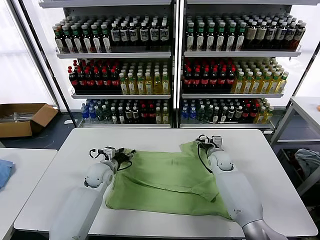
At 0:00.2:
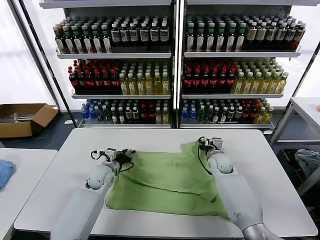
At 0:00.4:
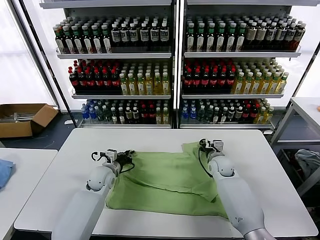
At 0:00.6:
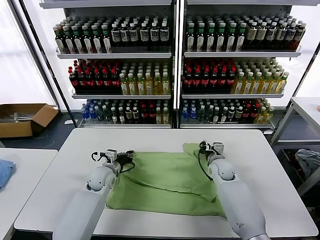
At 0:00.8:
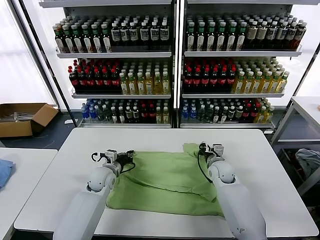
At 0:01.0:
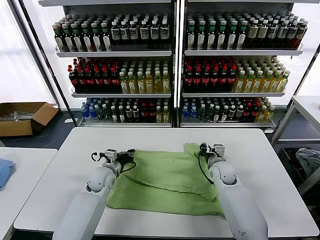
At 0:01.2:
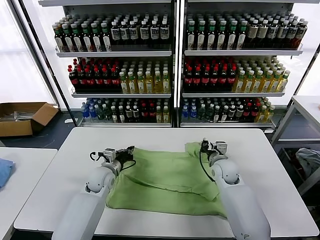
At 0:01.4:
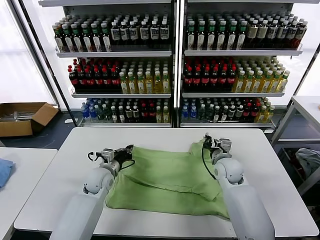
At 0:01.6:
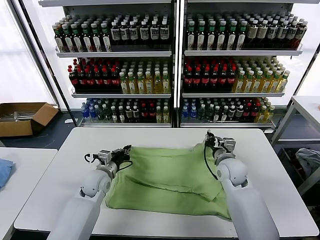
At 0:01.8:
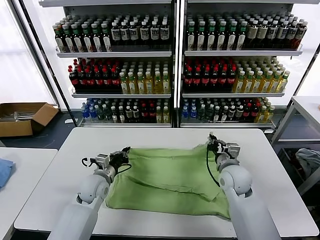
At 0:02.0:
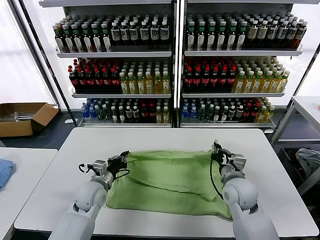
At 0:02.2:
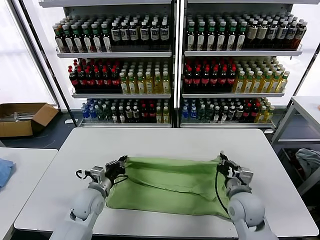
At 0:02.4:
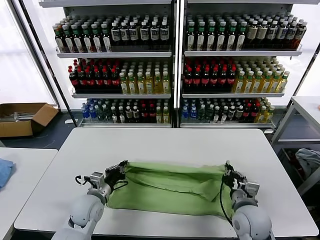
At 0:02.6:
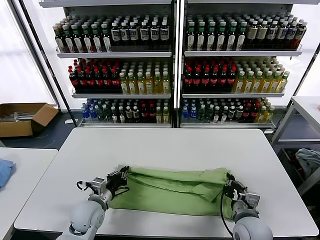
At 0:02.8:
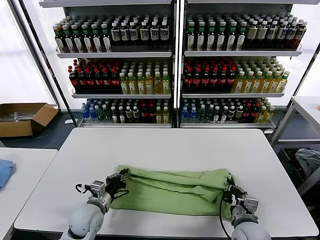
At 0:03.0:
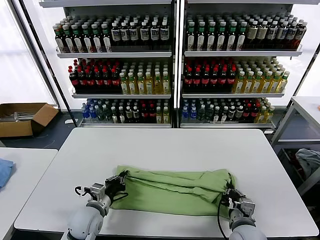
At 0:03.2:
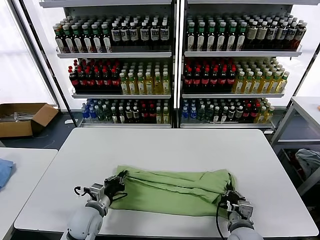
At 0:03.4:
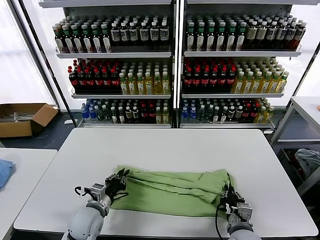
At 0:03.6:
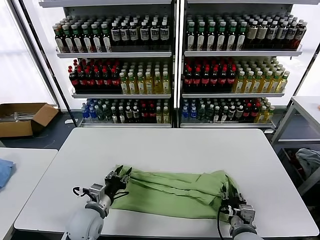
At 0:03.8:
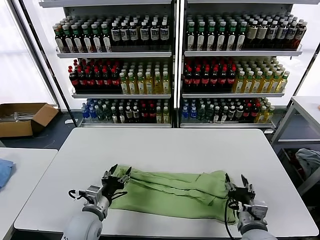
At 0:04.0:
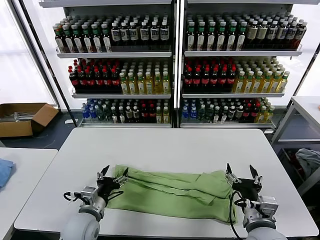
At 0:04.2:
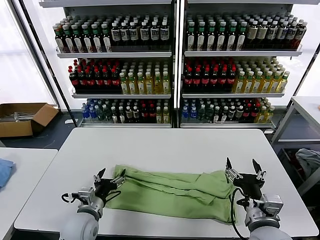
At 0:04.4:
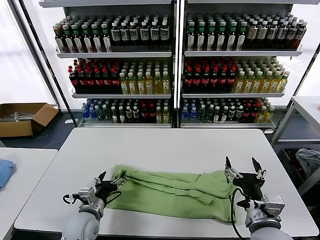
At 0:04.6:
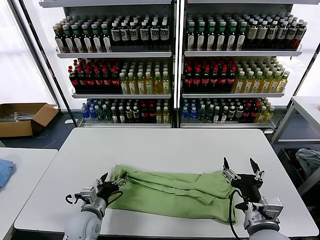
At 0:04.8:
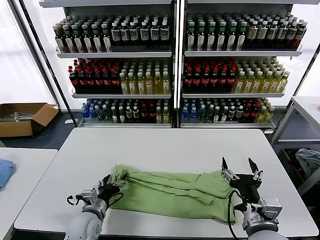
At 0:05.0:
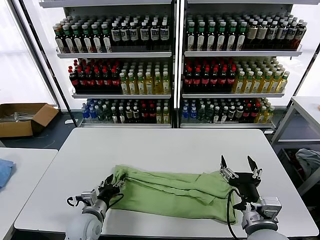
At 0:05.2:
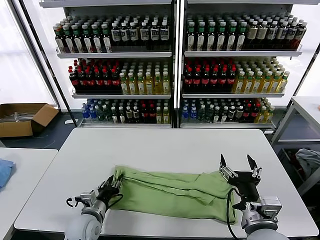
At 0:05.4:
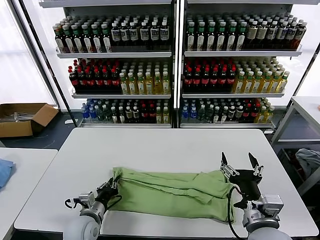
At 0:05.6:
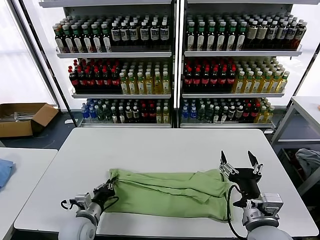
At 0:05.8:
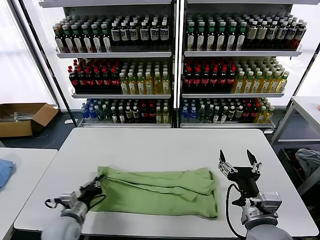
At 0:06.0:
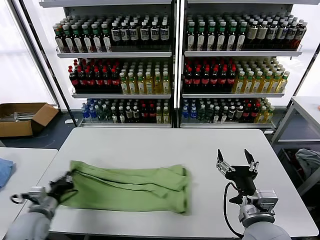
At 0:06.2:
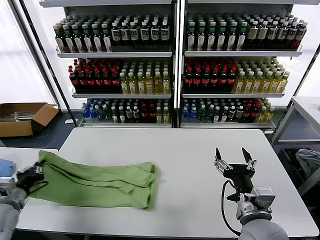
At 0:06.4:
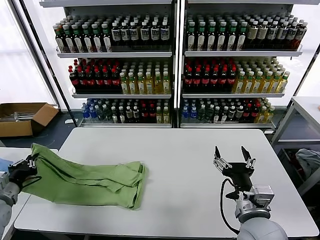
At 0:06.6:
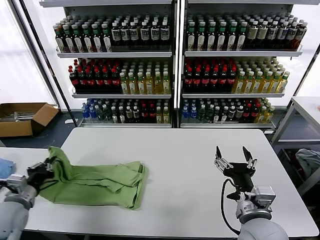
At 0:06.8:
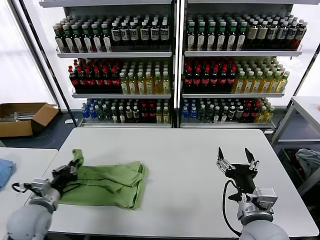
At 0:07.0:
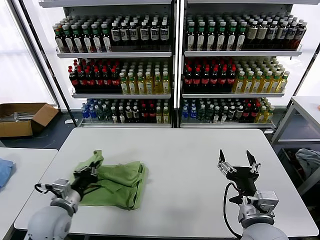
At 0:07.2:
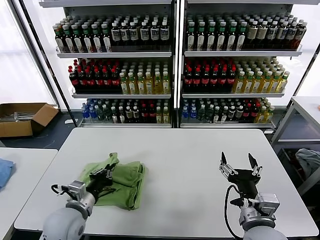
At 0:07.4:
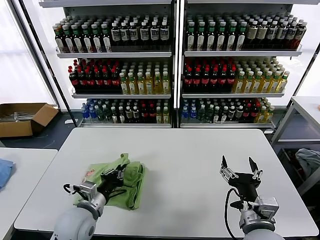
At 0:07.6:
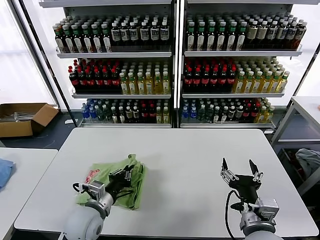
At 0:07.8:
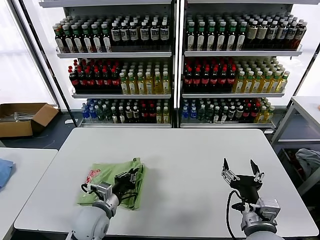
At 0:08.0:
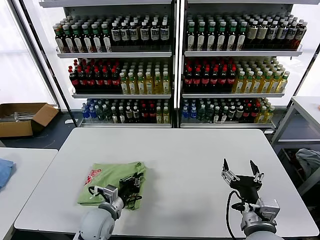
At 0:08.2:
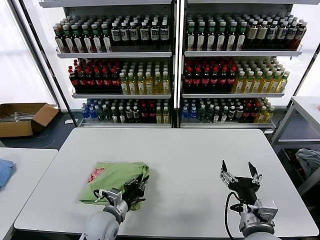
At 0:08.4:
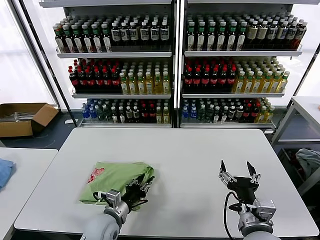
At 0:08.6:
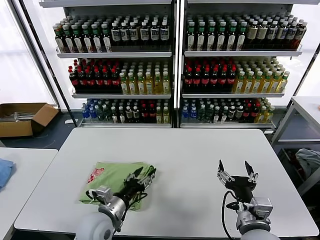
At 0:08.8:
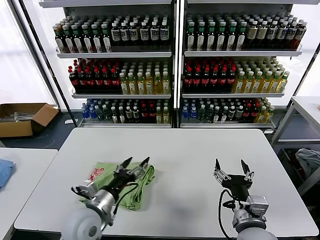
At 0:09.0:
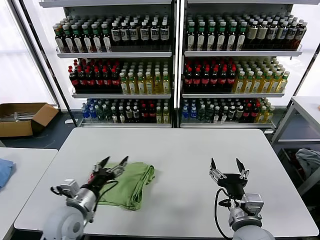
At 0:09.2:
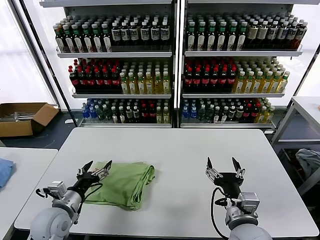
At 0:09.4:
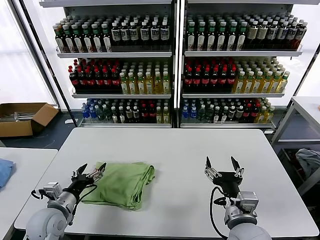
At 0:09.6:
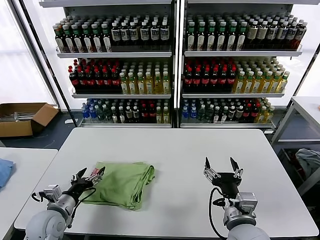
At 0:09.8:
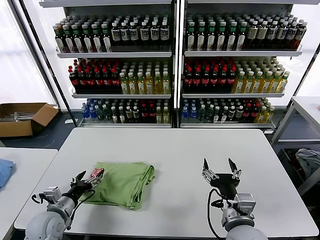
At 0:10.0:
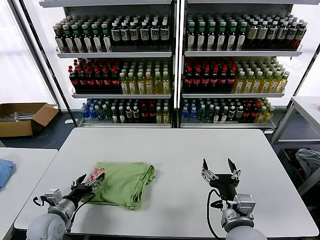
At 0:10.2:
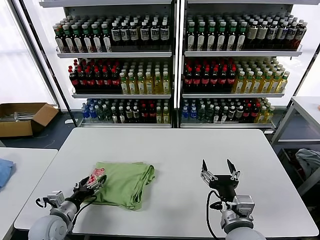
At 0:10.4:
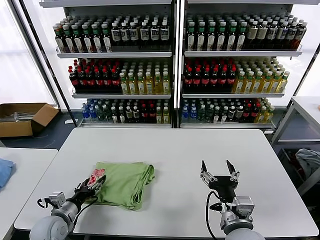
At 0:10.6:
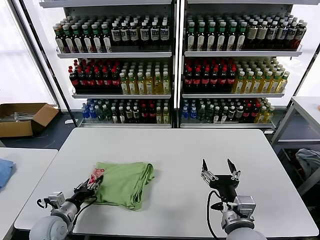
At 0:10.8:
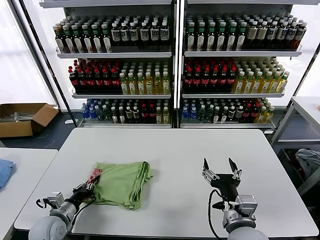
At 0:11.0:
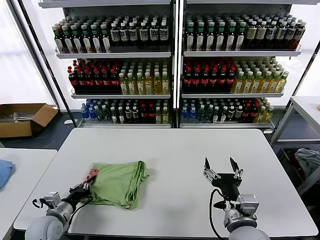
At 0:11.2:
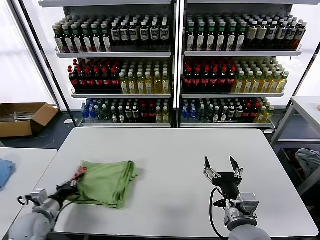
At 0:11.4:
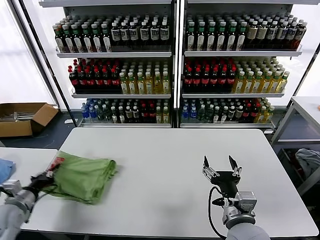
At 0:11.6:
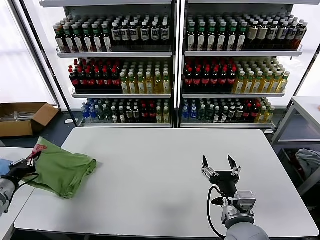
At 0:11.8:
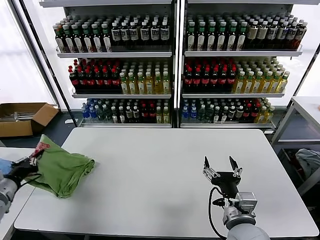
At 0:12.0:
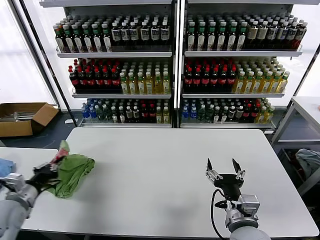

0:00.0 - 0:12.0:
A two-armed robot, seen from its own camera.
Task of the whole recording: fold and organize the clothes.
Step, 0:00.8 - 0:03.8: use both grippers to drag the upper edge of the fabric backward and fold it over the lower edge.
Step, 0:04.0 - 0:05.6: use the left gripper to clamp the left edge of the fabric.
Step, 0:05.8 - 0:08.6: use the left gripper to drag the left edge of the fabric to the left and folds it over the right edge.
0:00.0 - 0:01.6: The left gripper closes. The right gripper is displaced backward and upward by roughly 15 cm, and closes its fingers.
0:01.6 - 0:03.0: The right gripper travels backward and downward by roughly 20 cm, while the left gripper shifts approximately 10 cm backward.
0:03.0 - 0:04.4: The right gripper moves upward, about 10 cm, and opens up, while the left gripper opens its fingers.
0:04.4 - 0:06.0: The left gripper goes about 15 cm to the left, and closes its fingers.
0:06.0 - 0:07.6: The left gripper moves to the right, roughly 15 cm.
0:07.6 - 0:09.0: The left gripper reaches approximately 5 cm downward, then returns, and opens its fingers.
0:09.0 - 0:10.4: The left gripper travels to the left and downward by approximately 15 cm.
0:10.4 - 0:12.0: The left gripper moves upward and to the left, approximately 15 cm, and closes up.

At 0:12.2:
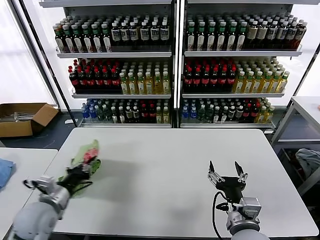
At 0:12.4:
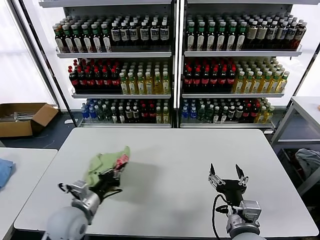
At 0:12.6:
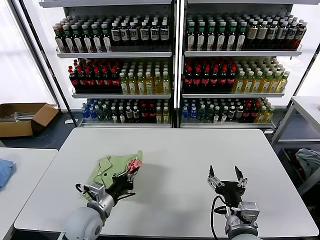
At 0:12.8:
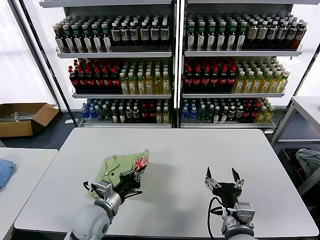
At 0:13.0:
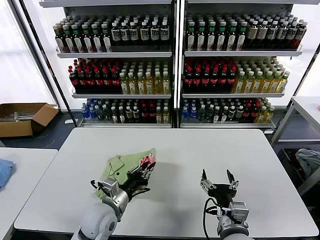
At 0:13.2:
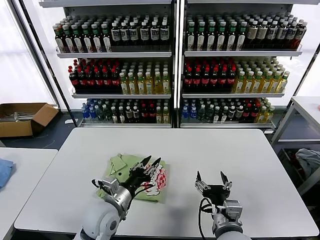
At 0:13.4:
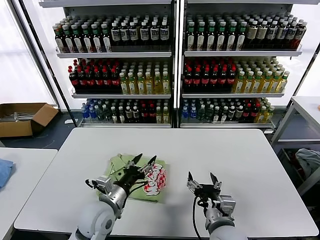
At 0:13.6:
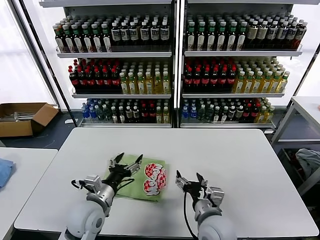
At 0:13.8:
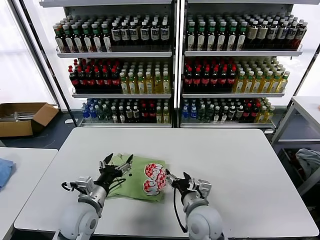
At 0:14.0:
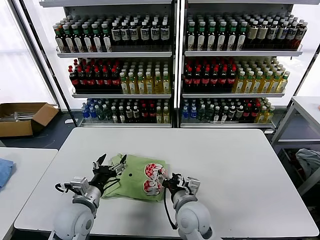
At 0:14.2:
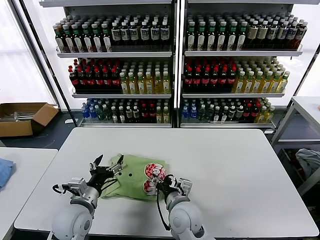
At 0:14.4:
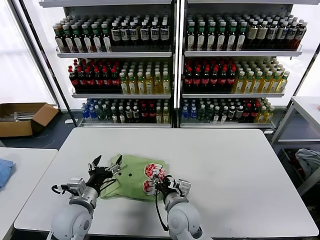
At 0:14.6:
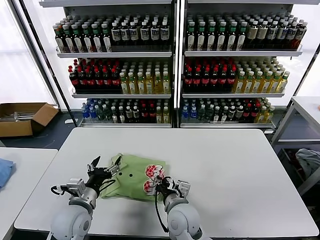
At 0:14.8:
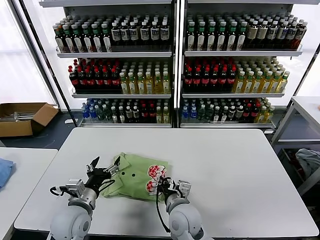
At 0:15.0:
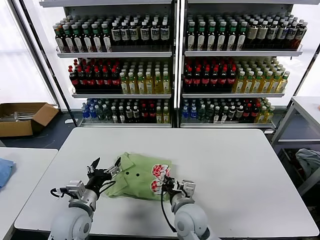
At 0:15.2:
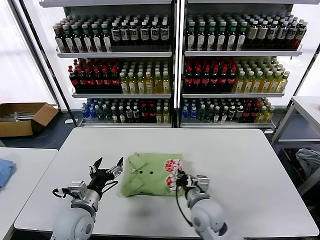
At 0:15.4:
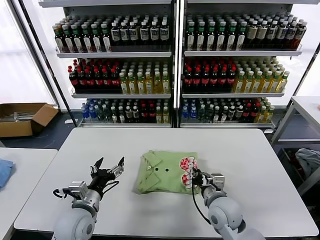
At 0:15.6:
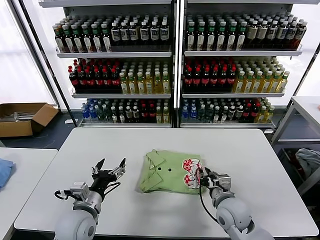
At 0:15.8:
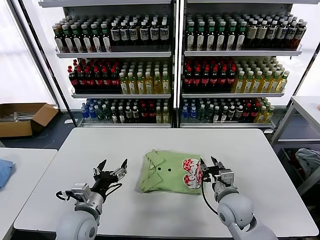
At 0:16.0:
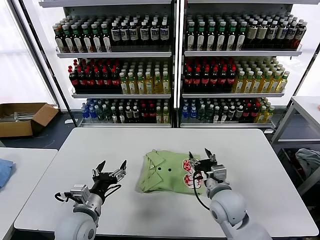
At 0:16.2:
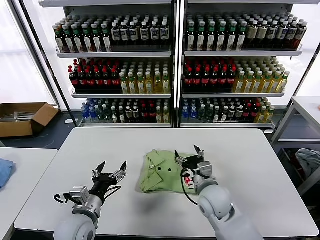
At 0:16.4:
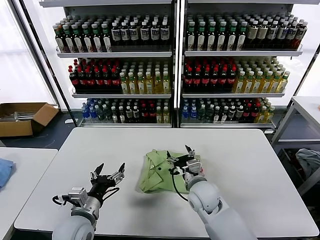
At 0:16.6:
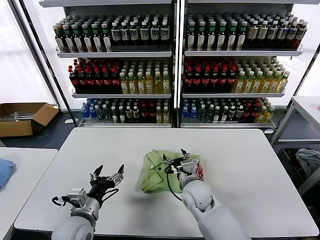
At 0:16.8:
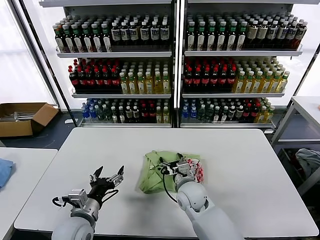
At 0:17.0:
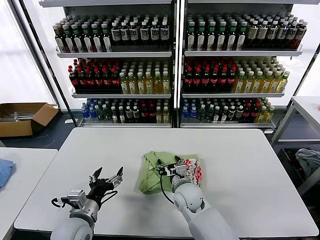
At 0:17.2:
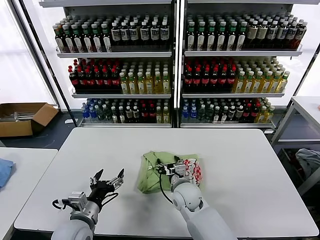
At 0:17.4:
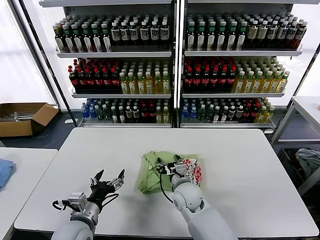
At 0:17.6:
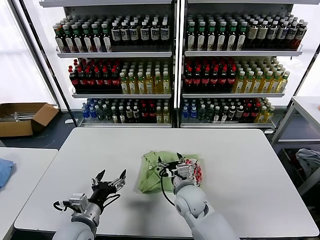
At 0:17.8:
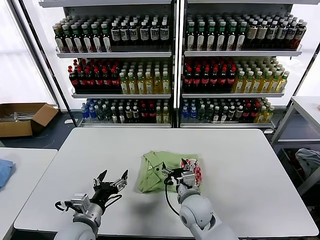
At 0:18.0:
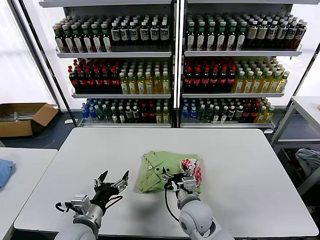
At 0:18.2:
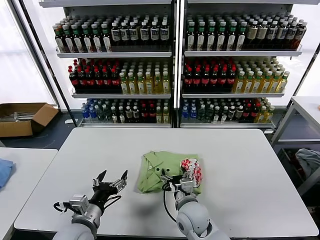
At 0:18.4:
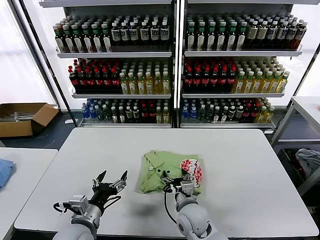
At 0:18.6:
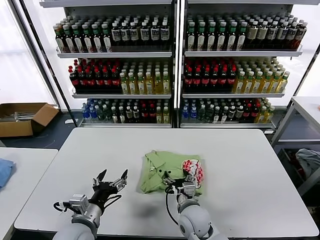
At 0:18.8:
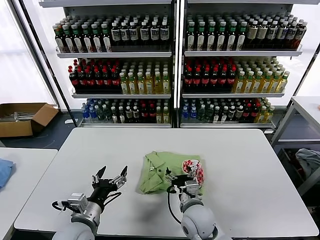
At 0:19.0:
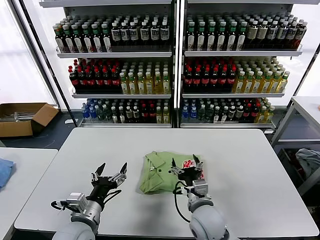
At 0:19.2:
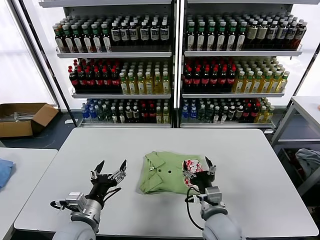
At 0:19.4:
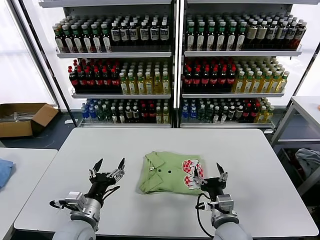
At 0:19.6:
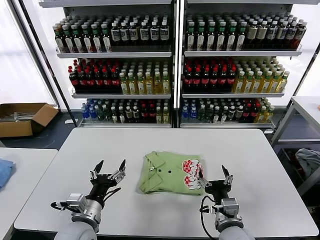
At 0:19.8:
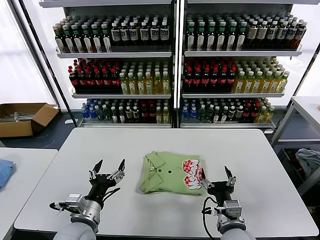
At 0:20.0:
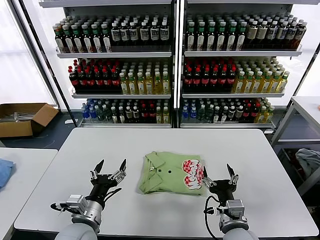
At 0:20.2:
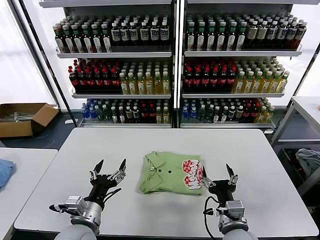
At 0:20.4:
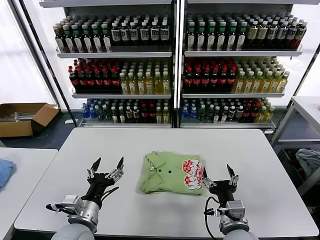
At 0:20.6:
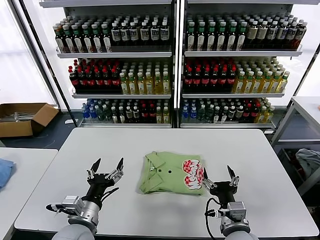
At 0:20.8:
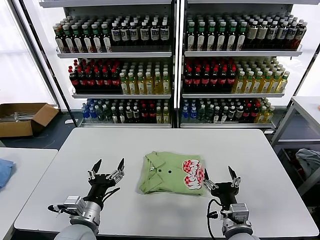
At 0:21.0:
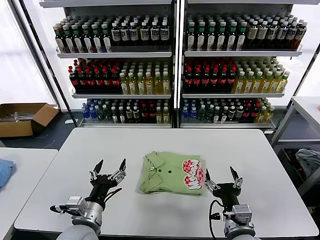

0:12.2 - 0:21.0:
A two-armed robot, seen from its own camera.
Task of the whole recording: fold and organize the clothes.
Step, 0:13.4 - 0:18.8: Drag the clothes to the center of the table.
0:12.2 - 0:13.6: The right gripper is displaced to the left by roughly 5 cm, while the left gripper travels to the right by roughly 15 cm, and opens its fingers.
0:13.6 - 0:15.2: The right gripper heads forward, covering about 5 cm, goes to the left and returns, some 10 cm each way, and closes.
0:15.2 - 0:16.6: The right gripper shifts approximately 5 cm forward, travels to the right and back again, roughly 10 cm each way, and opens its fingers.
0:16.6 - 0:18.0: The right gripper moves backward, roughly 5 cm.
0:18.0 - 0:19.6: The right gripper goes approximately 10 cm to the right and backward.
0:19.6 - 0:21.0: The grippers make only small movements.
